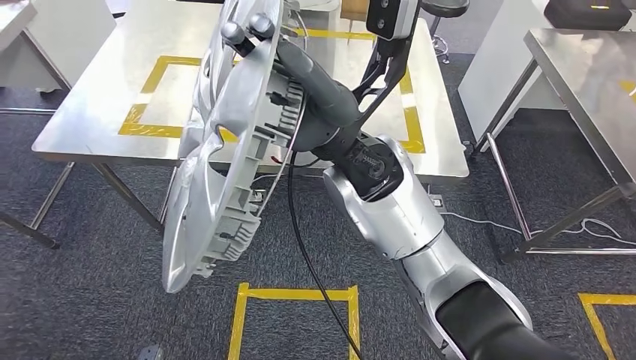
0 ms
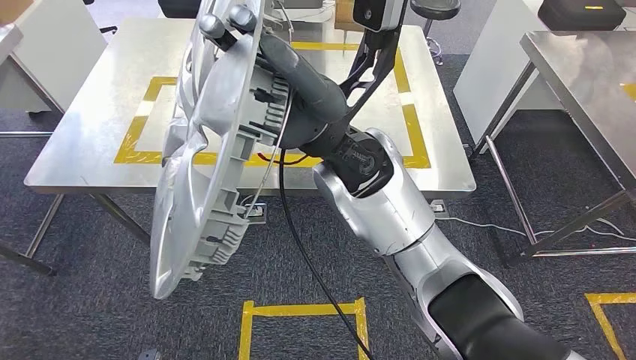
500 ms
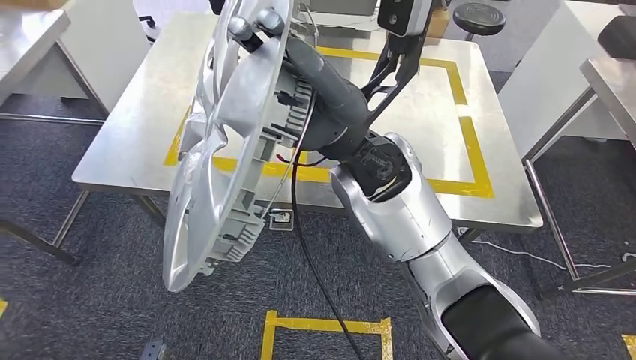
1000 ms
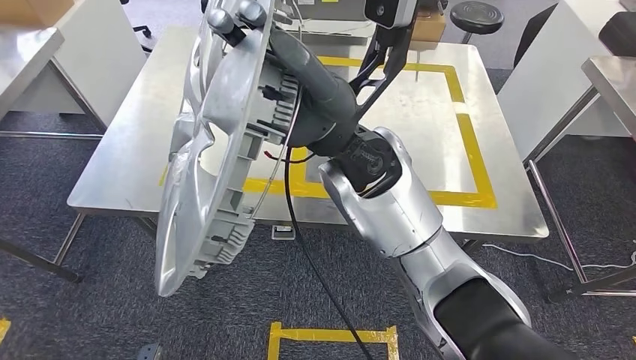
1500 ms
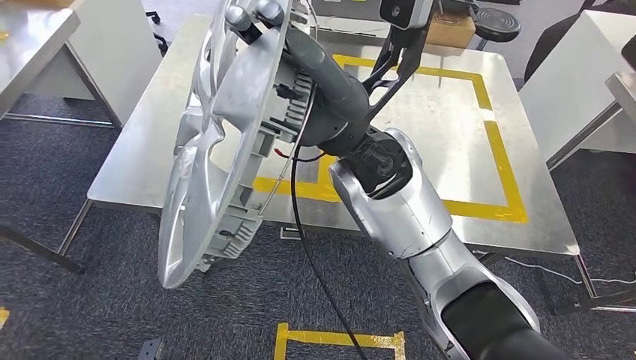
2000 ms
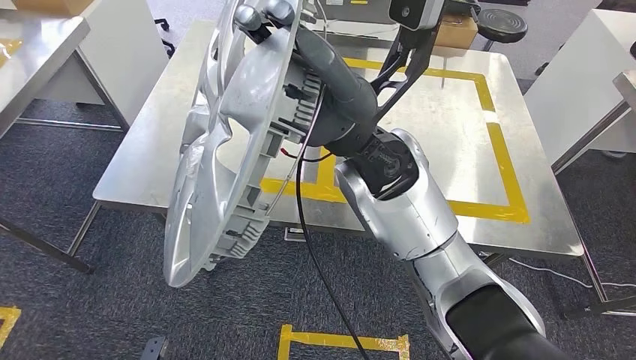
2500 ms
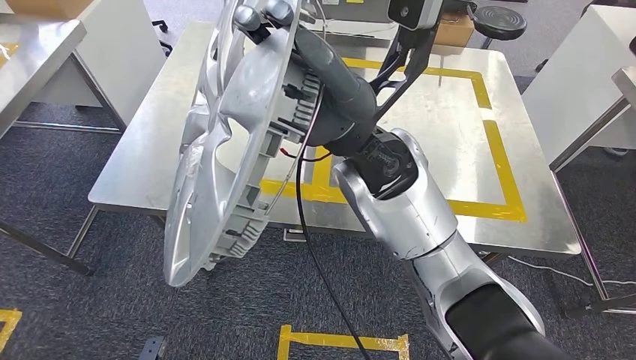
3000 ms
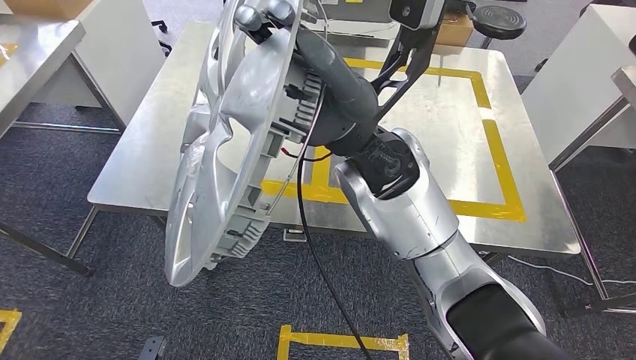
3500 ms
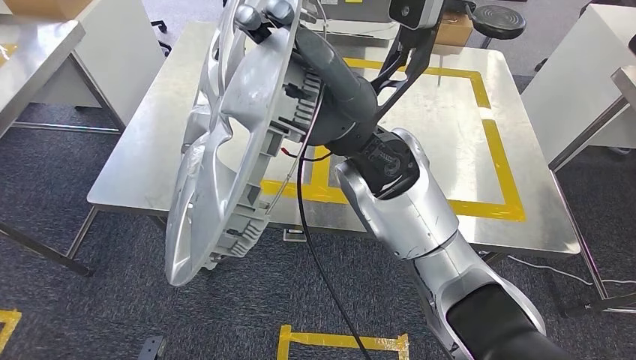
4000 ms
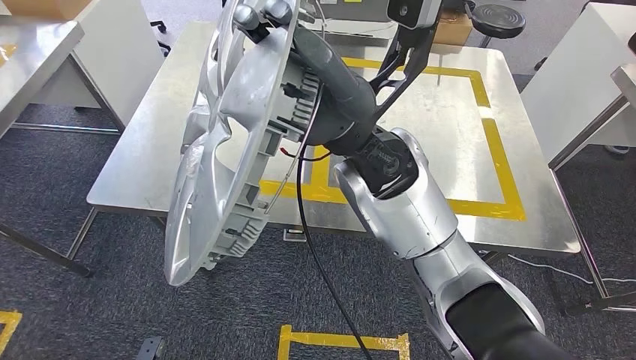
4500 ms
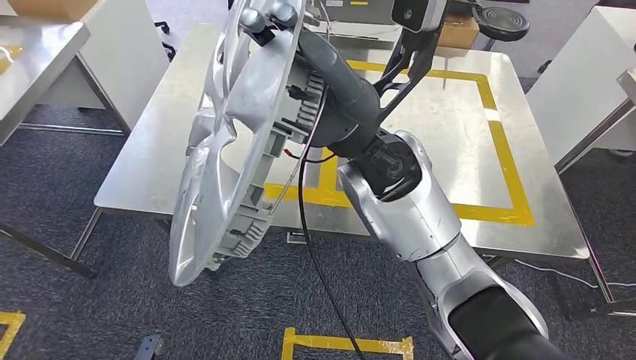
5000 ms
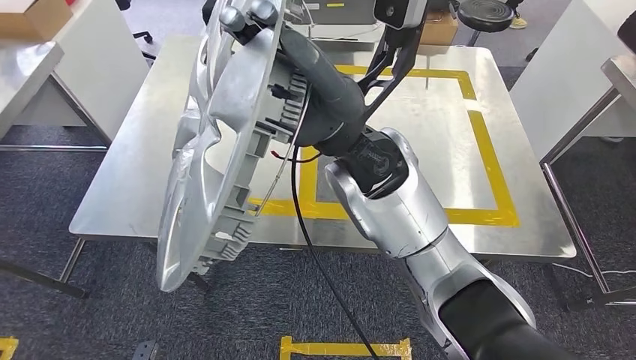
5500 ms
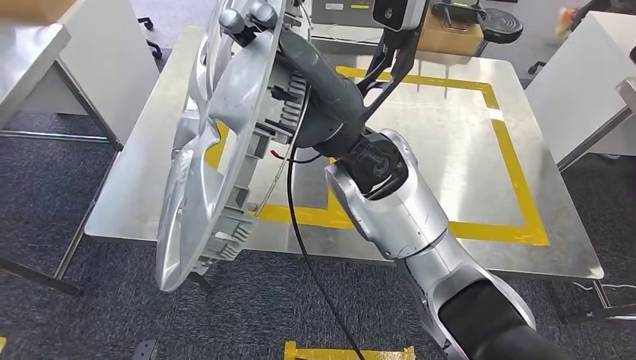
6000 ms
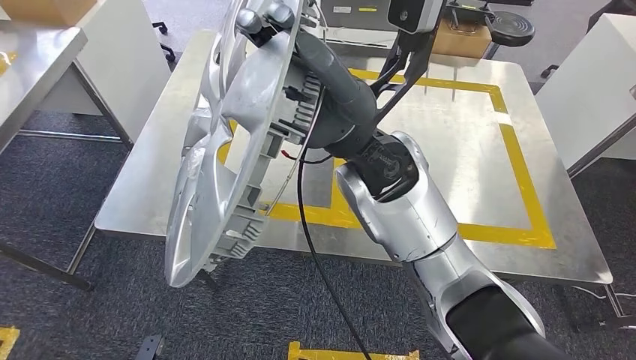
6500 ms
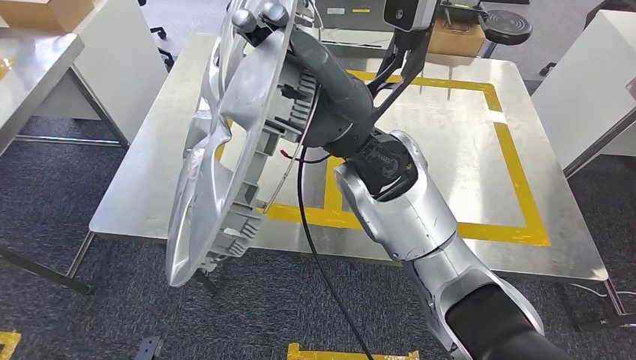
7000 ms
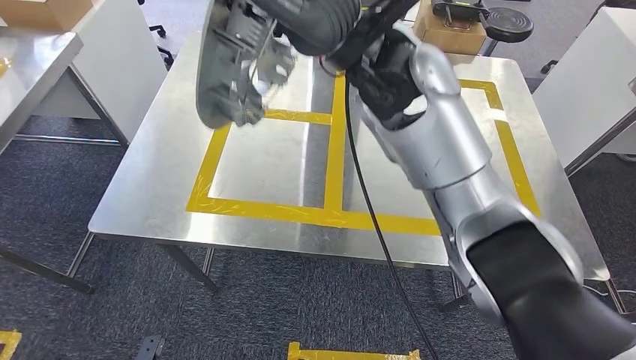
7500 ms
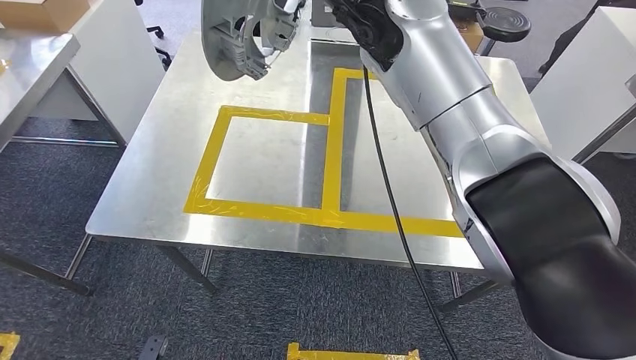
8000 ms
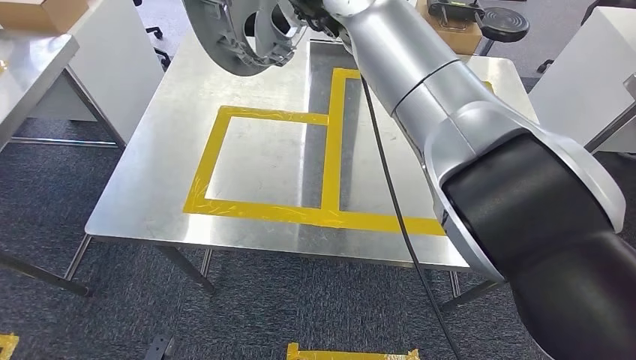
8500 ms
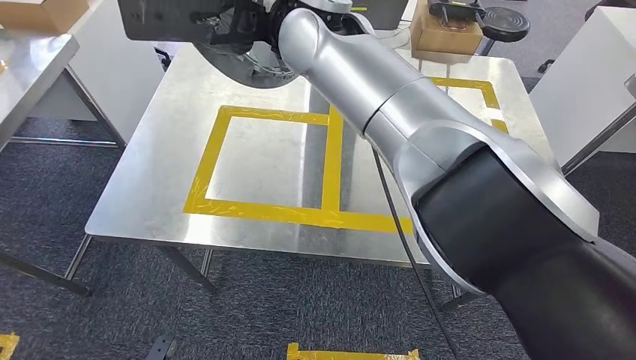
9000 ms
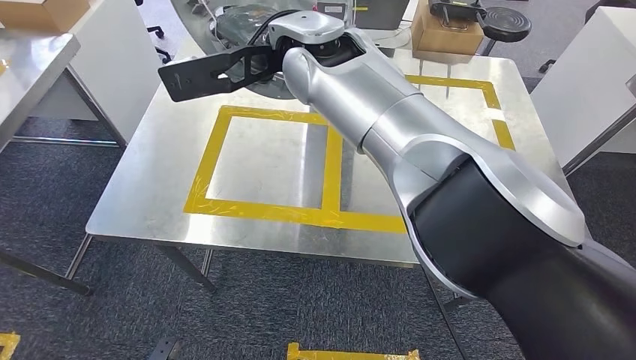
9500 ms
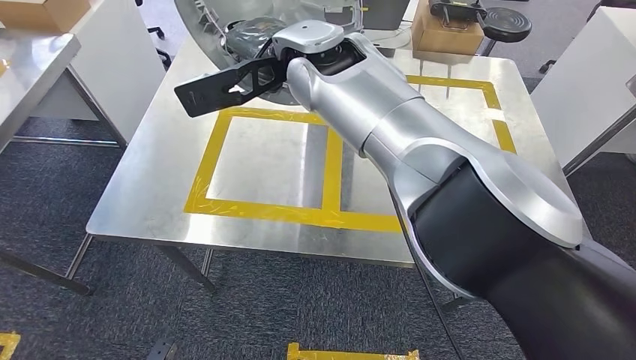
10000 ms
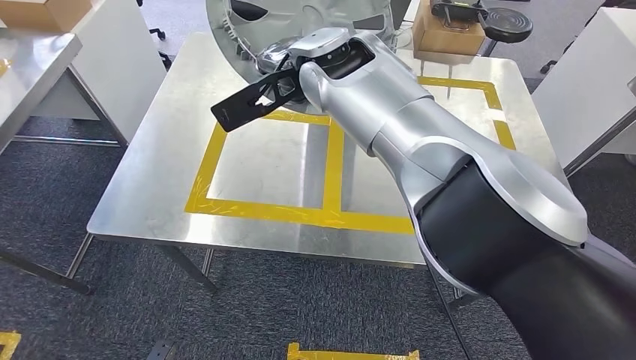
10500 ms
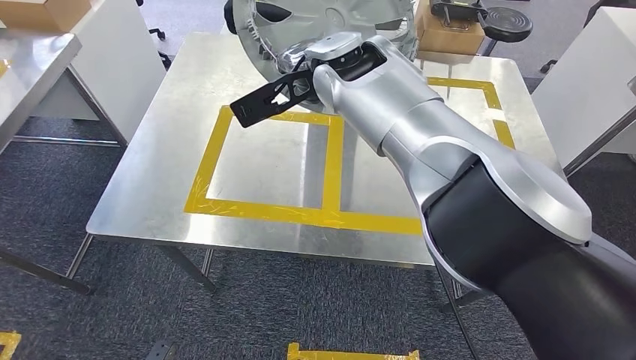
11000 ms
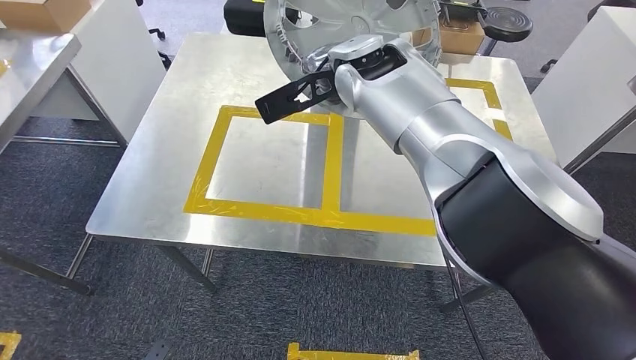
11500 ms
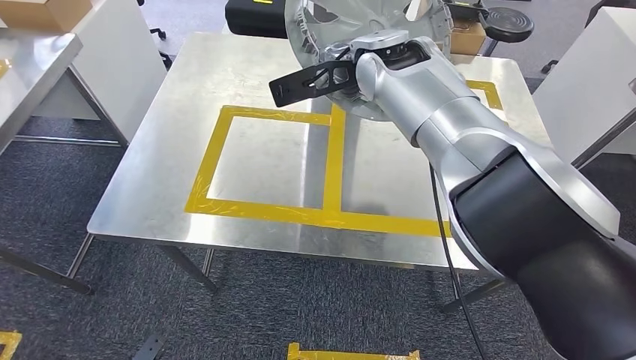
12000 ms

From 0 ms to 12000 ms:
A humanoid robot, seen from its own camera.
Step, from 0 ms to 3500 ms: Move to the table behind body.

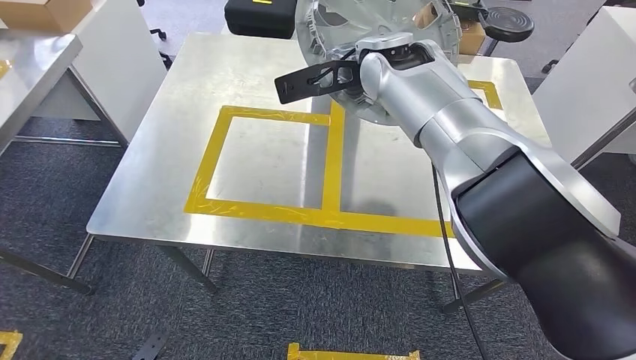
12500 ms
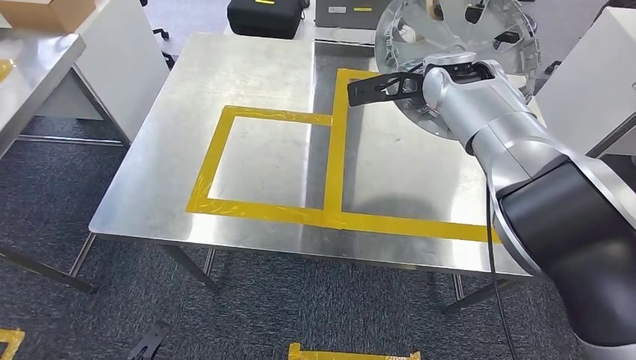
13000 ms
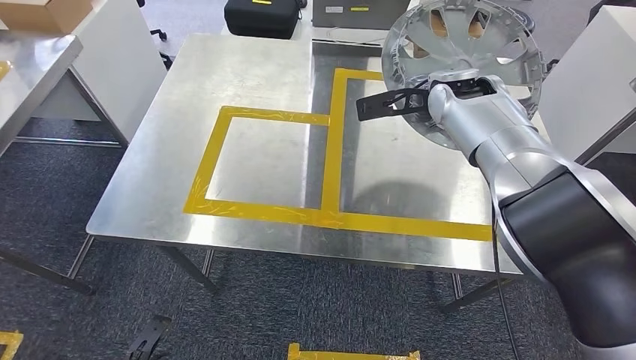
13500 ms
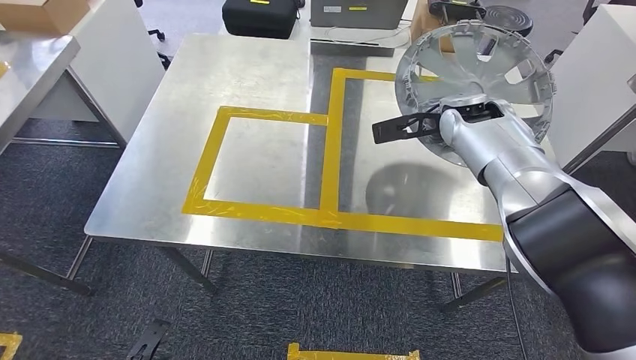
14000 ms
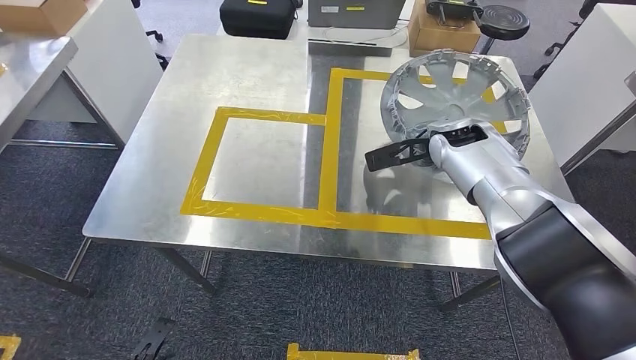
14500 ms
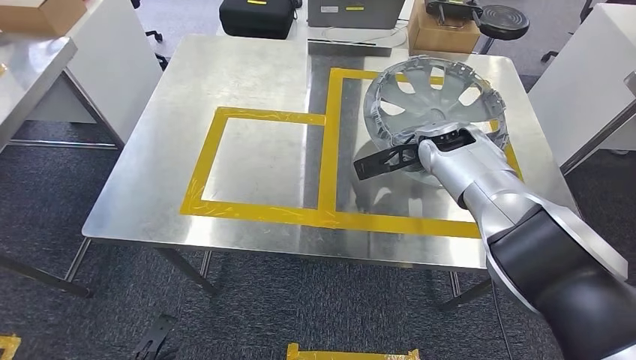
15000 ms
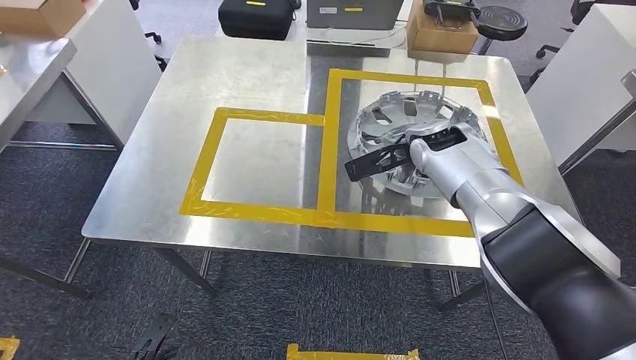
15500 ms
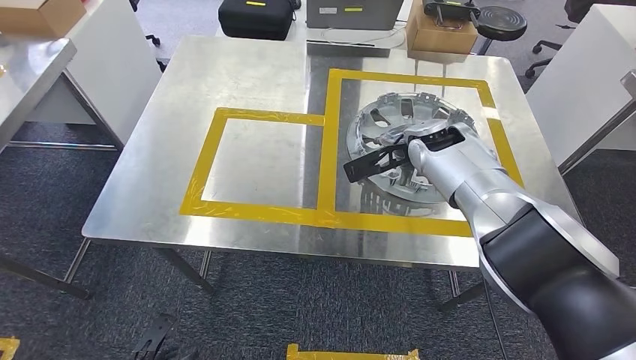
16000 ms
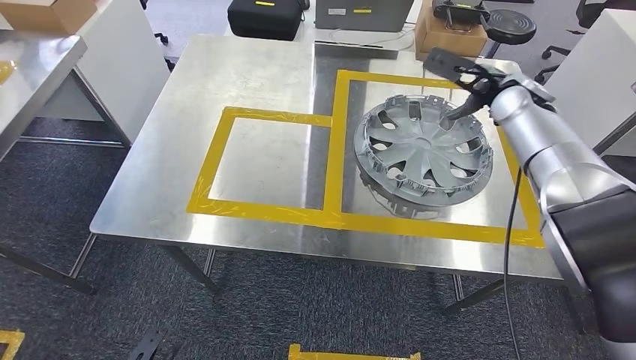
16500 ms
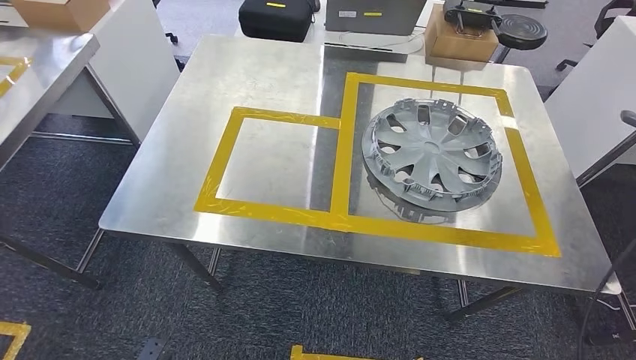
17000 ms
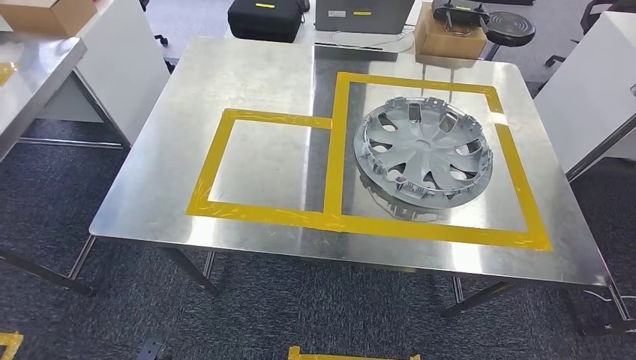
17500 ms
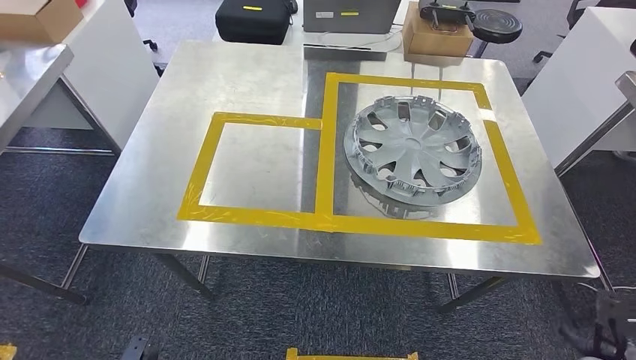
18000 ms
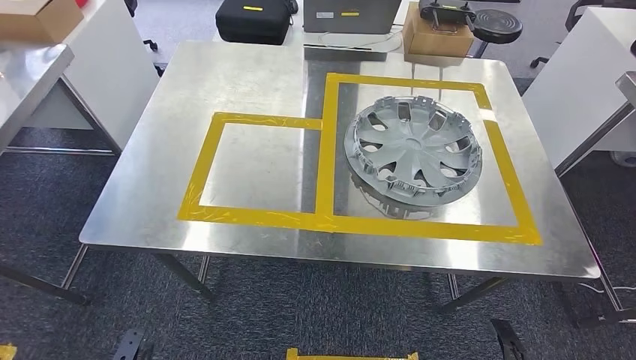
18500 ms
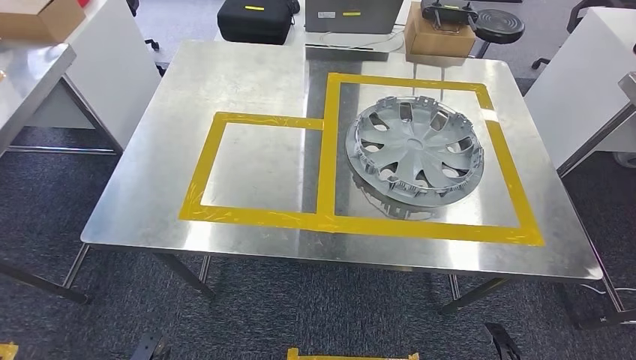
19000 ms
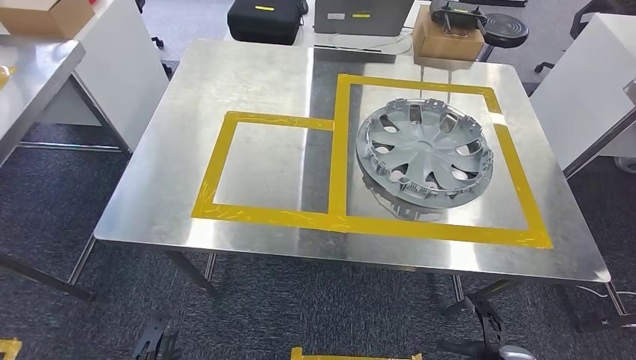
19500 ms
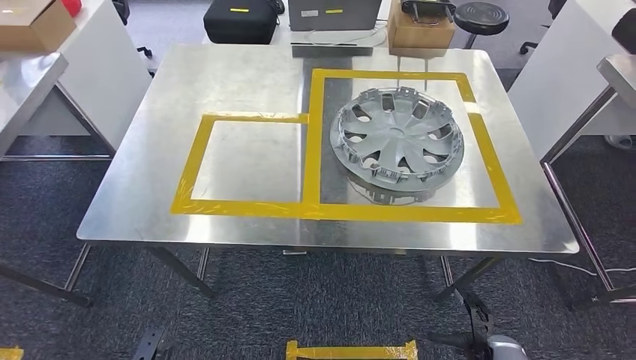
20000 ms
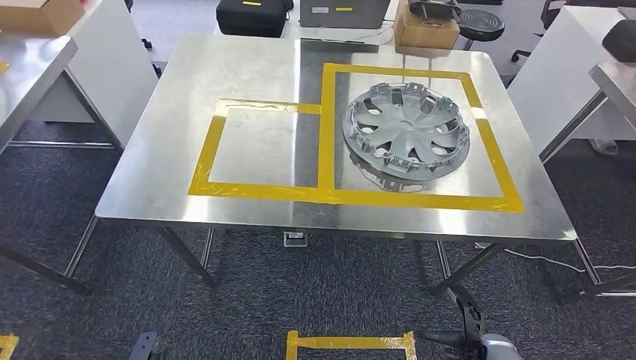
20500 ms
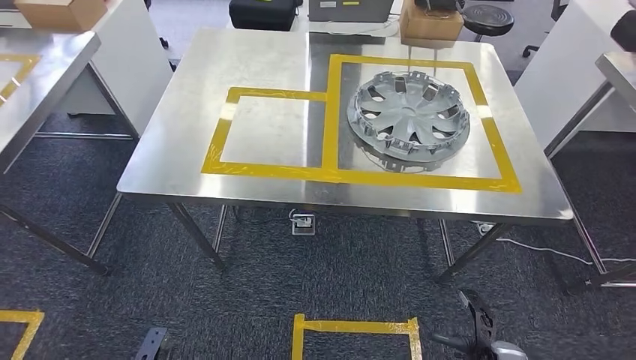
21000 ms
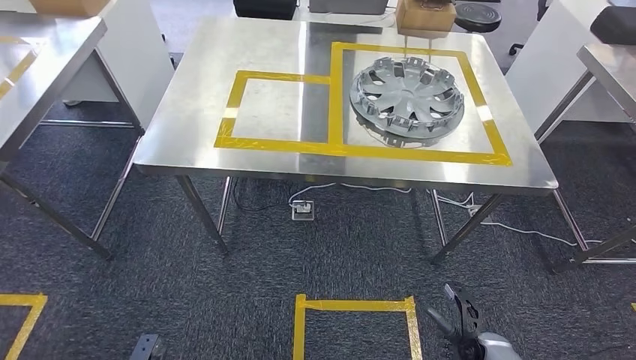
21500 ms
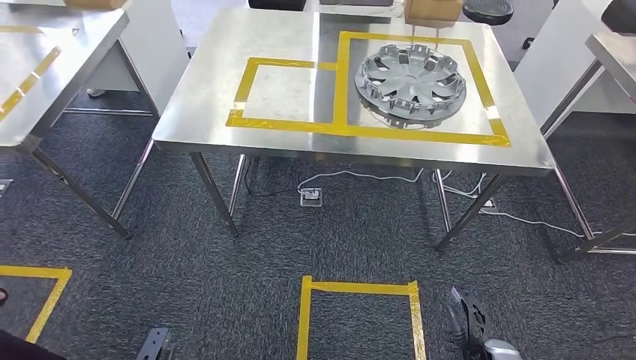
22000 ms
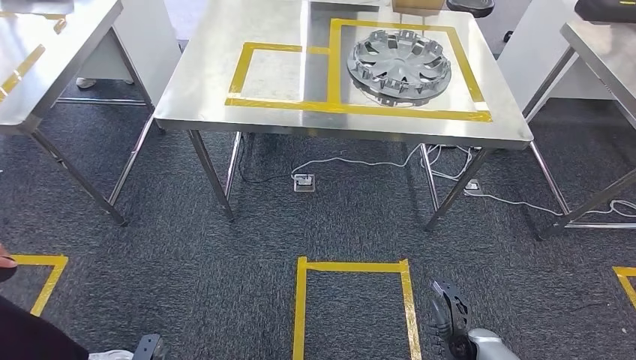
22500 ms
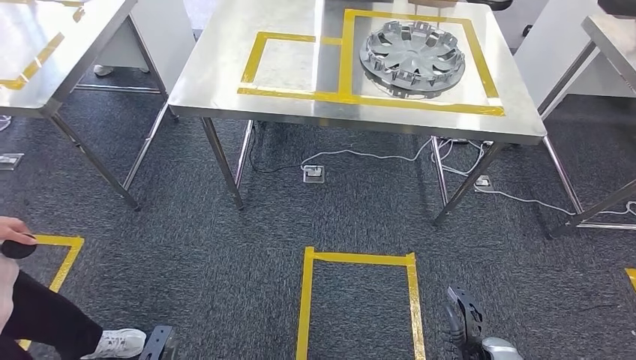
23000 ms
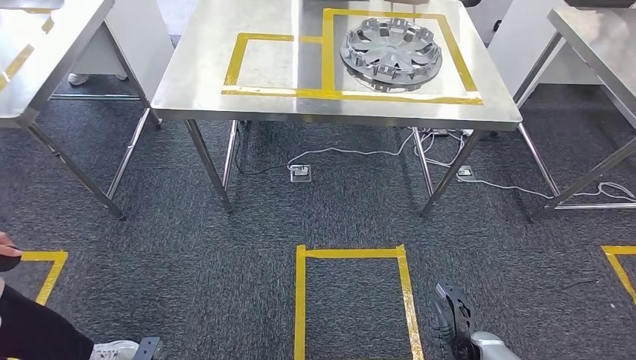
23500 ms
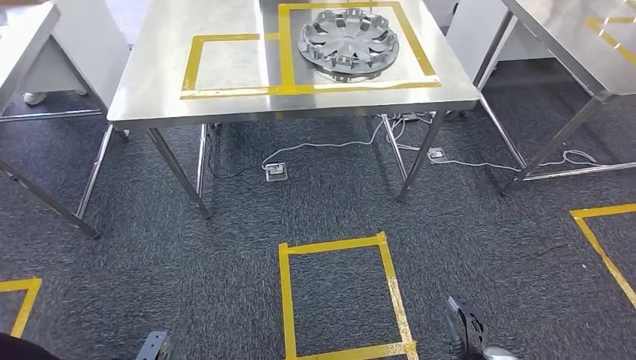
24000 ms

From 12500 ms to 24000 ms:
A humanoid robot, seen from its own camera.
Step, from 12500 ms to 15500 ms: Place the gray part on the table with right gripper.
